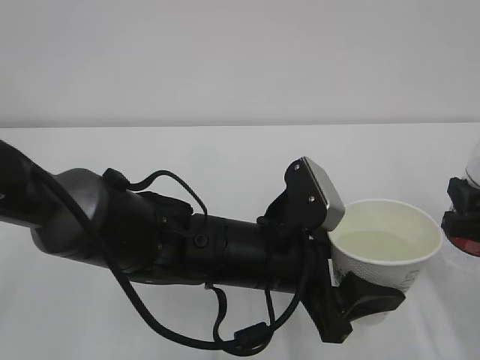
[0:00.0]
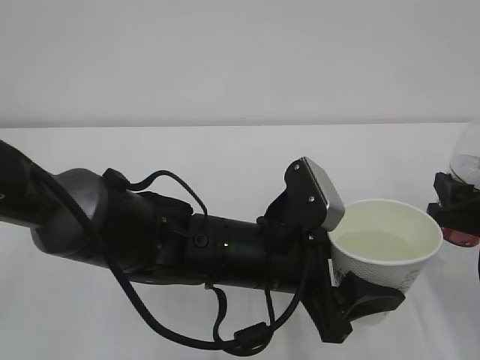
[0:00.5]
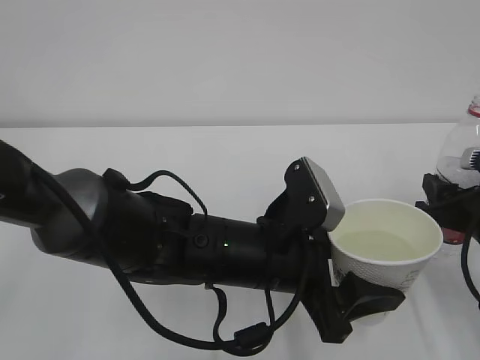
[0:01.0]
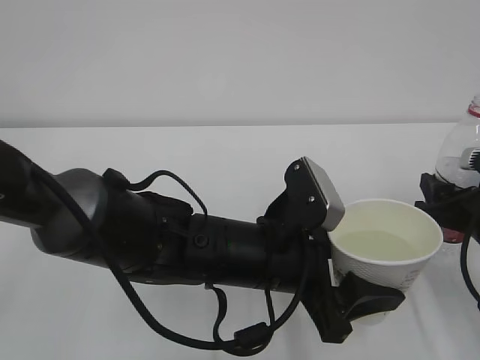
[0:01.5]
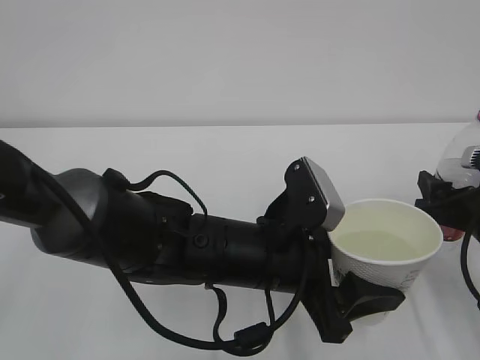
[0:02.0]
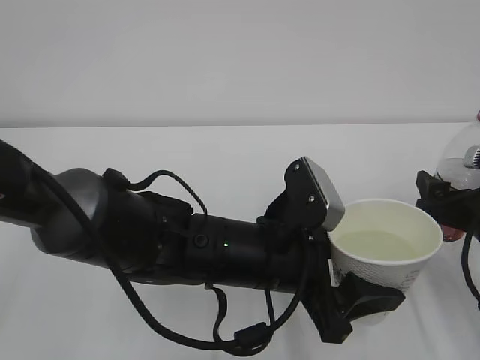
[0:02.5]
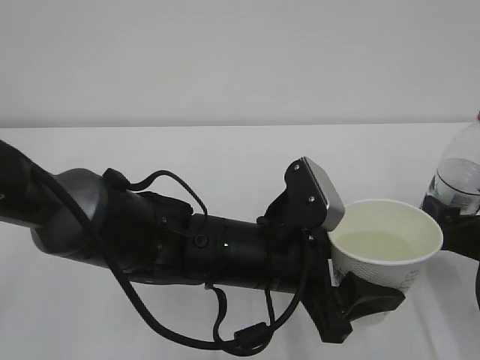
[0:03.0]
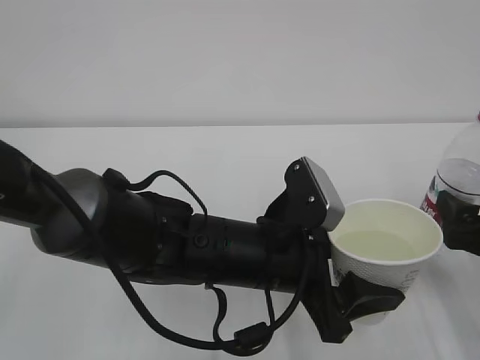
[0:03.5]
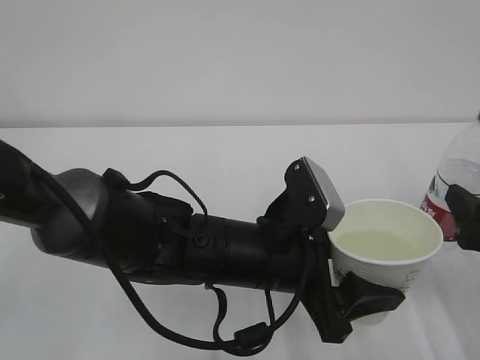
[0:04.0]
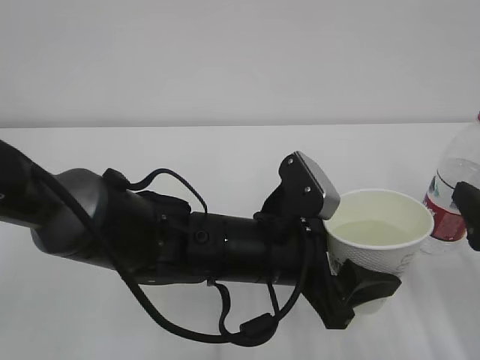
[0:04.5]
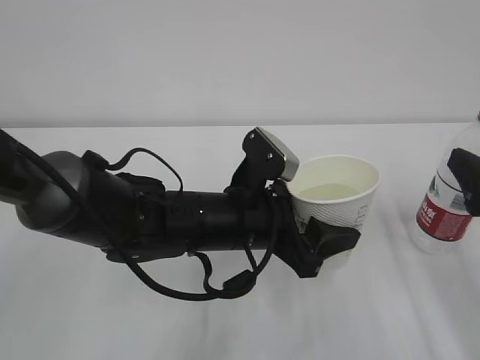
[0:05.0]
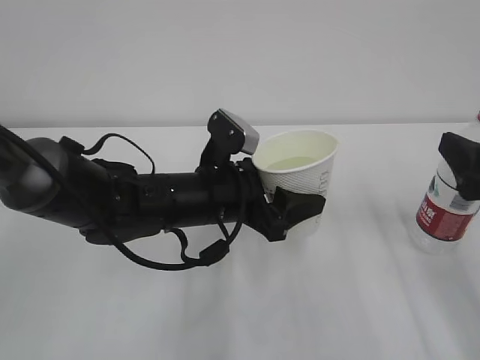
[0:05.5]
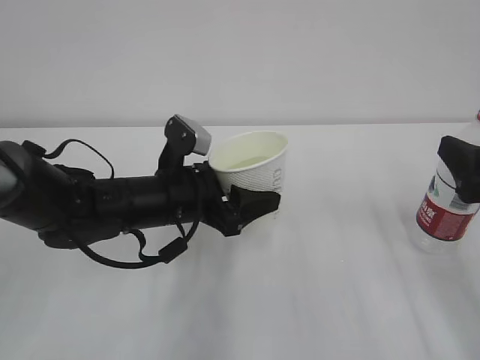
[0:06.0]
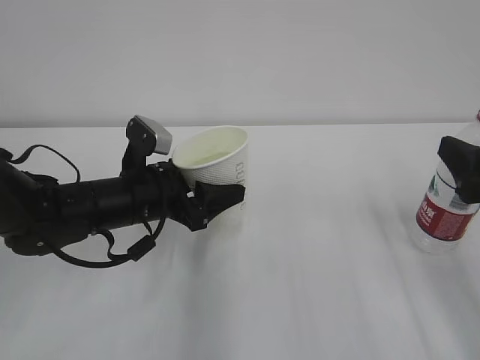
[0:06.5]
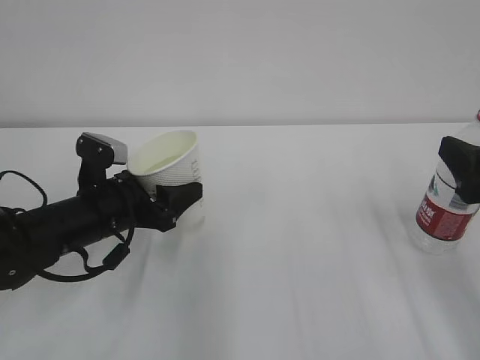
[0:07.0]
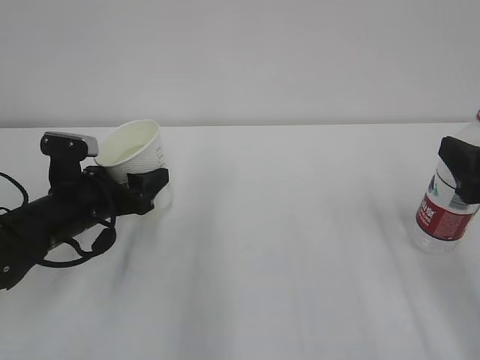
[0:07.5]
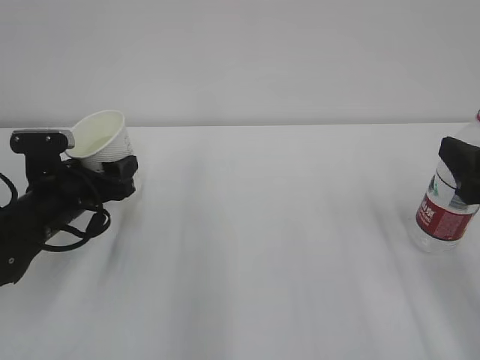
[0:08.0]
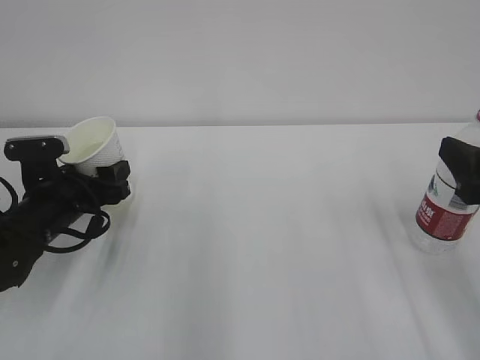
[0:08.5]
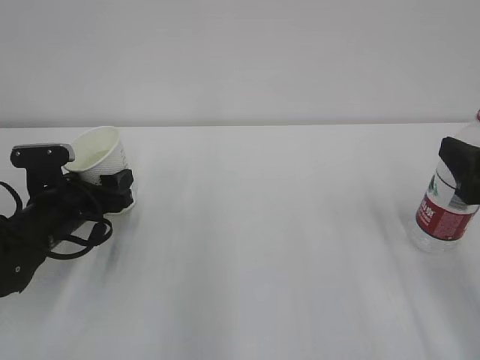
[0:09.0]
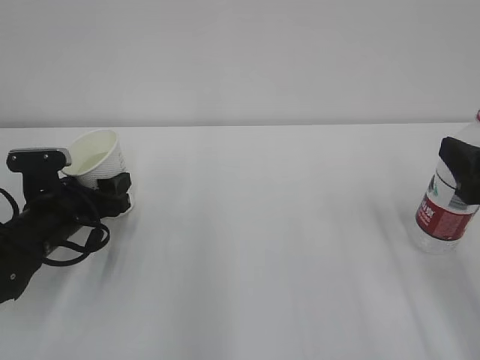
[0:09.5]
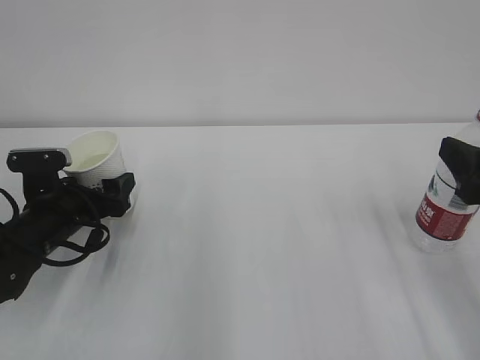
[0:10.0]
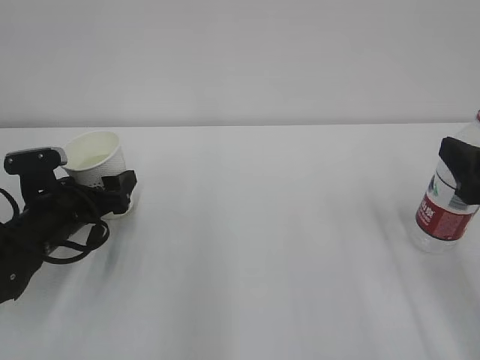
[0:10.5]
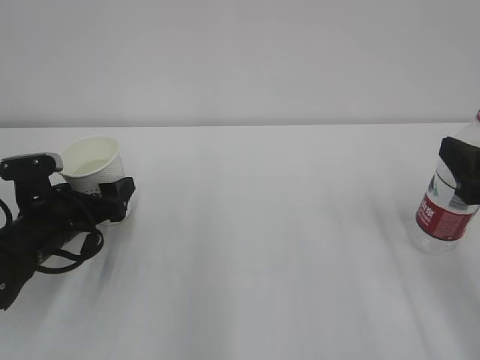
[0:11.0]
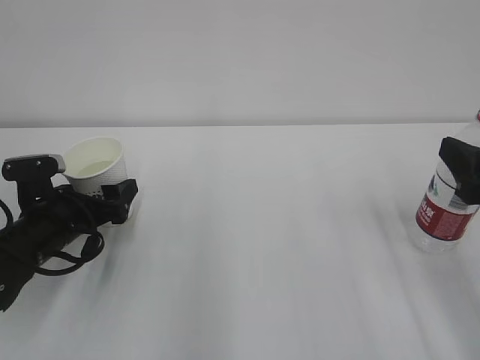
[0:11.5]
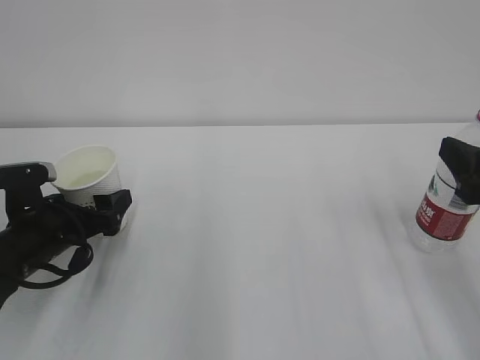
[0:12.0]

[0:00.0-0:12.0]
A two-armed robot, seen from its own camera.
0:00.0 to 0:02.0: The right gripper shifts by some 5 cm, and opens.
0:02.0 to 0:04.0: The right gripper heads backward, covering roughly 5 cm, and opens its fingers.
0:04.0 to 0:06.0: The left gripper goes approximately 15 cm to the left and forward. The right gripper is displaced upward by roughly 5 cm.
0:06.0 to 0:08.0: The left gripper moves to the left, approximately 15 cm.
0:08.0 to 0:10.0: The left gripper opens its fingers.
0:10.0 to 0:12.0: There are only small adjustments of the grippers.

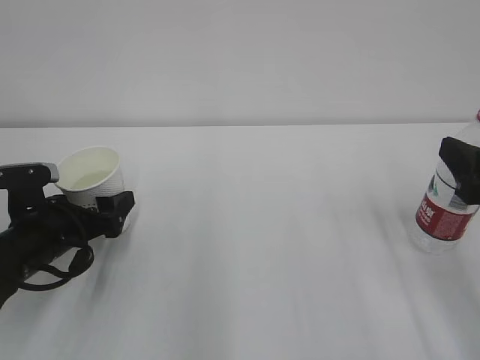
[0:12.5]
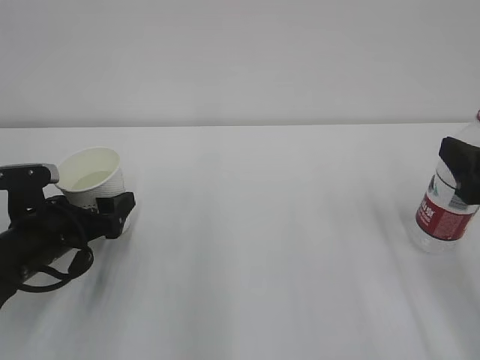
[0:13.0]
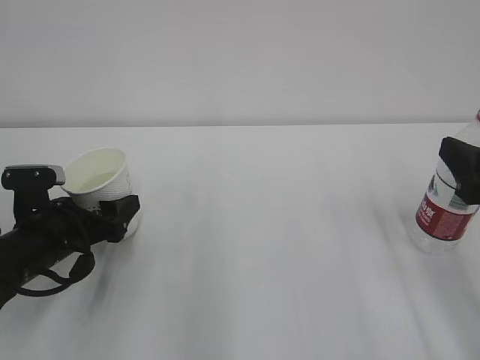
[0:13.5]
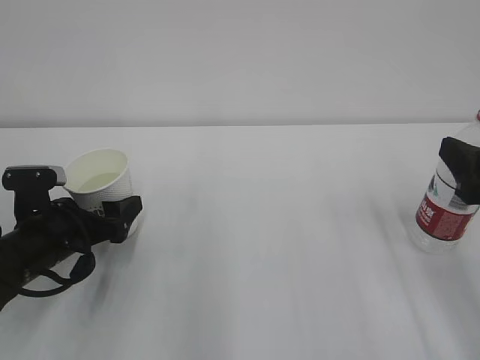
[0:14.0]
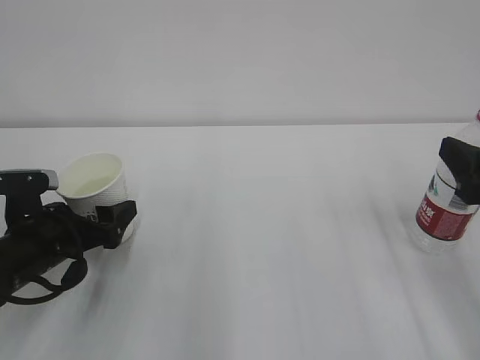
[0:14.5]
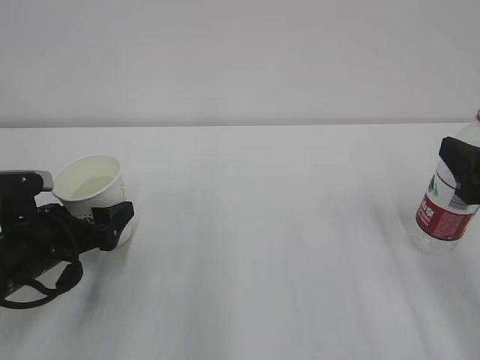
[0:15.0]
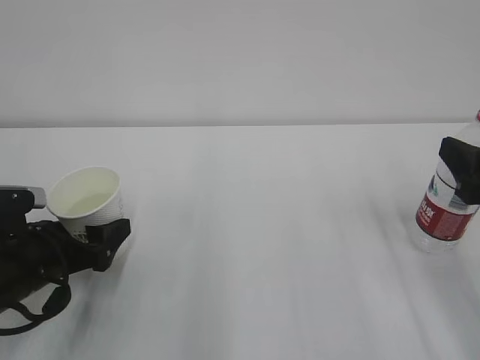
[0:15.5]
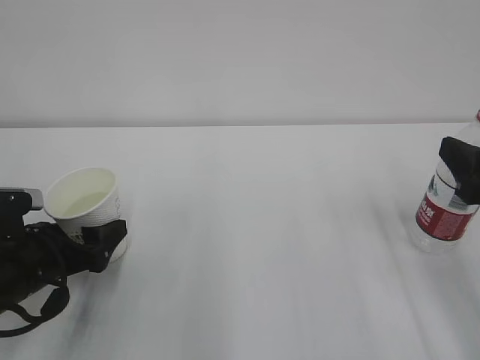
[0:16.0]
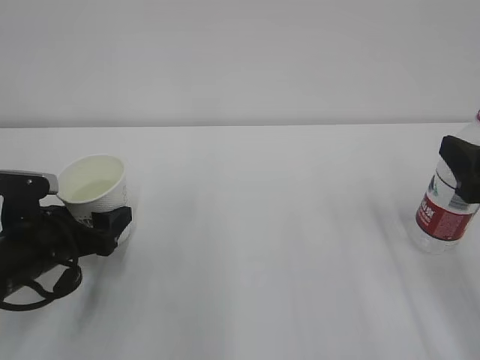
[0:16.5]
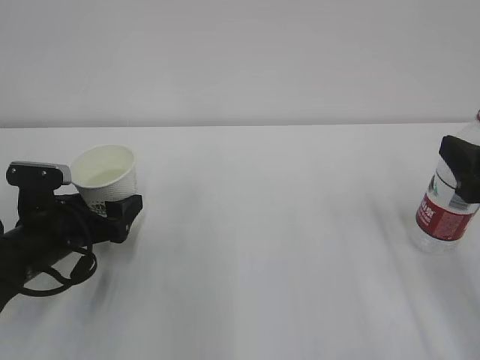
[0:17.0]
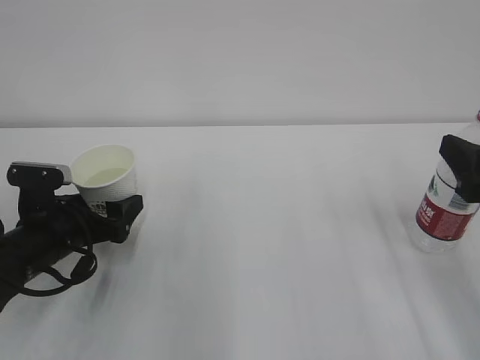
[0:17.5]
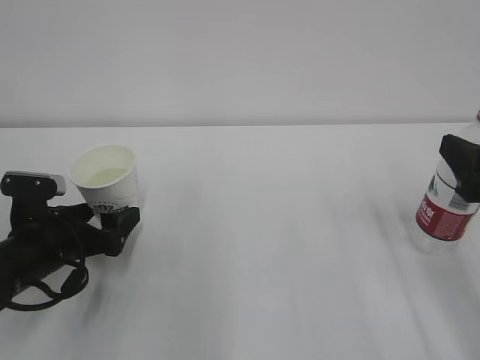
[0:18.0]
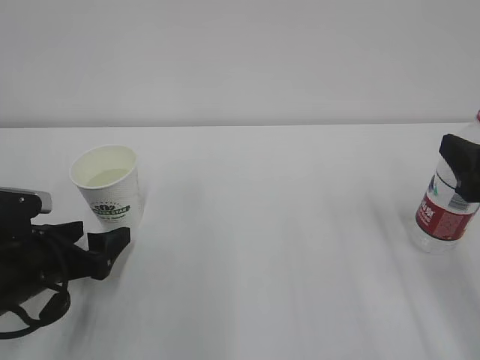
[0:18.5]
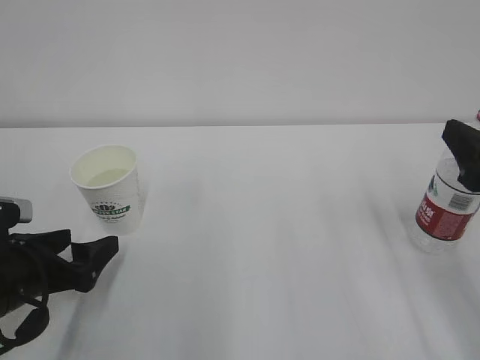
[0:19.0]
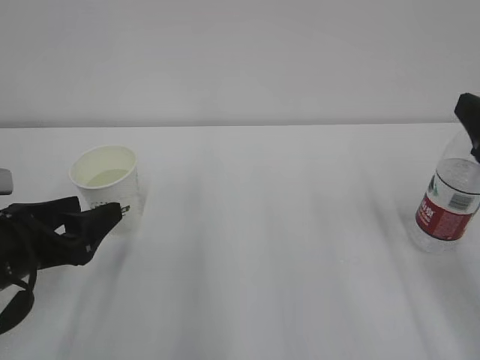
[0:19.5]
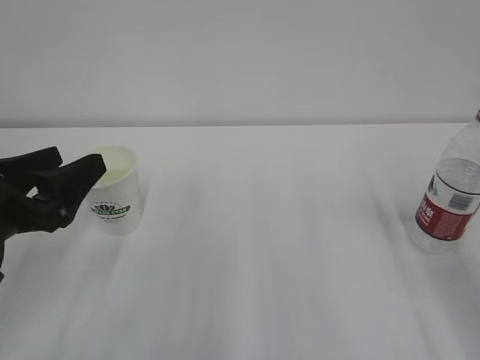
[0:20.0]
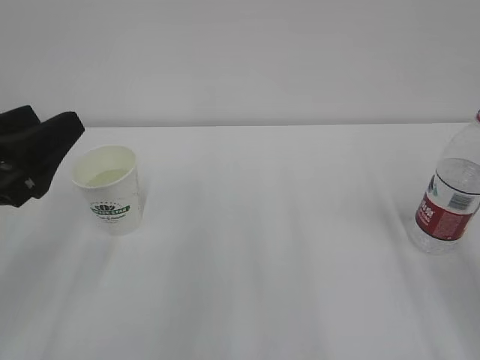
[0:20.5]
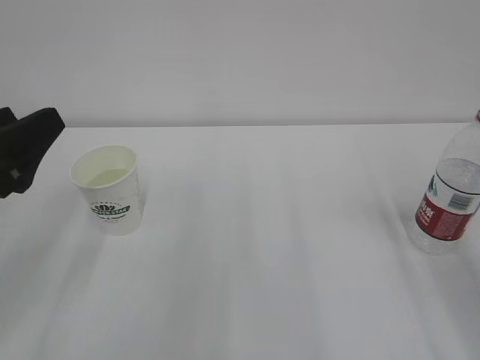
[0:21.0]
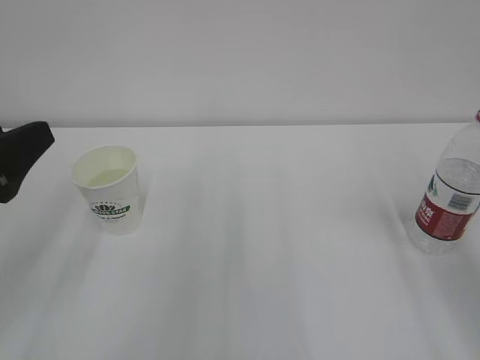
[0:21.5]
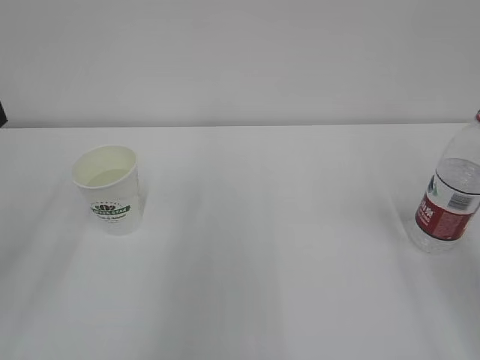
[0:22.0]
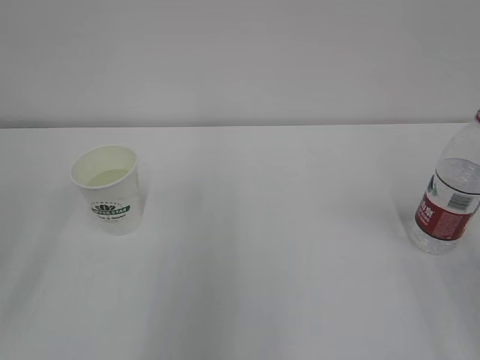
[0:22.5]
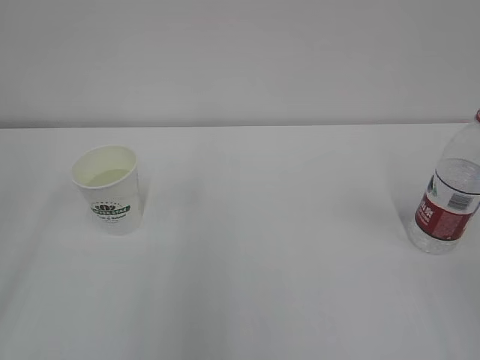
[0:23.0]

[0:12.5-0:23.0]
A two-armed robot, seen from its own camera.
0:12.5 to 0:14.5: Both grippers stay about where they are.
0:14.5 to 0:16.5: The grippers move only a little.
0:16.5 to 0:19.0: The left gripper changes place by approximately 5 cm.
0:19.0 to 0:21.0: The two grippers go some 10 cm upward.
0:21.0 to 0:23.0: The left gripper moves backward, upward and to the left, about 15 cm.

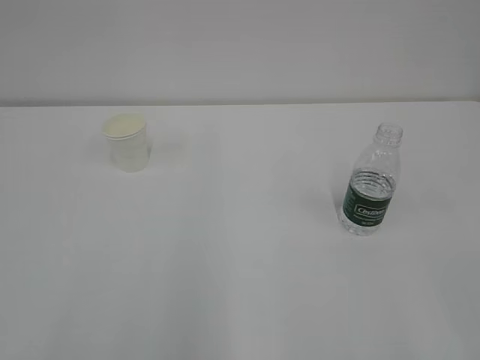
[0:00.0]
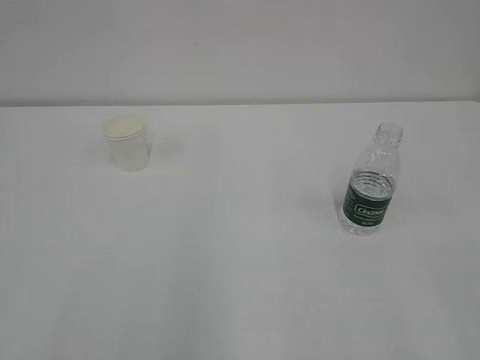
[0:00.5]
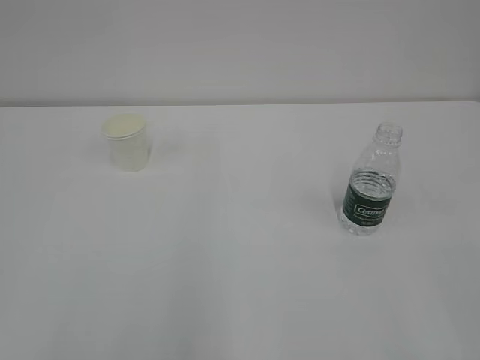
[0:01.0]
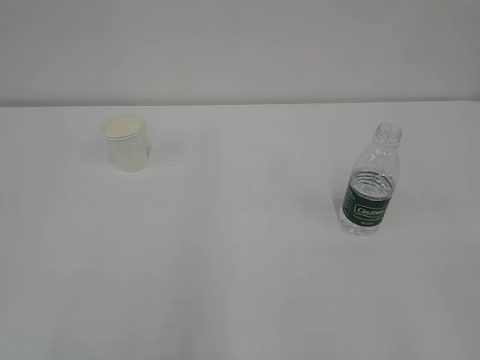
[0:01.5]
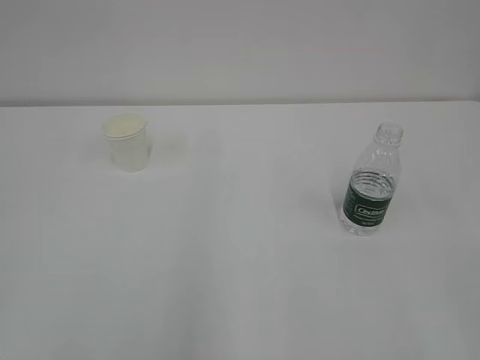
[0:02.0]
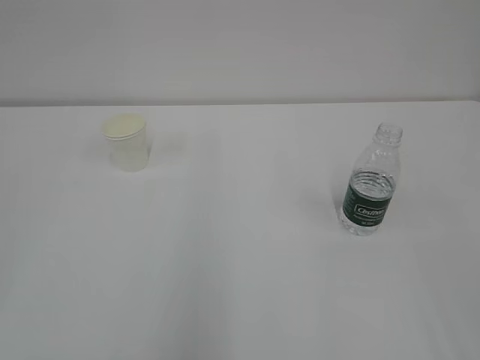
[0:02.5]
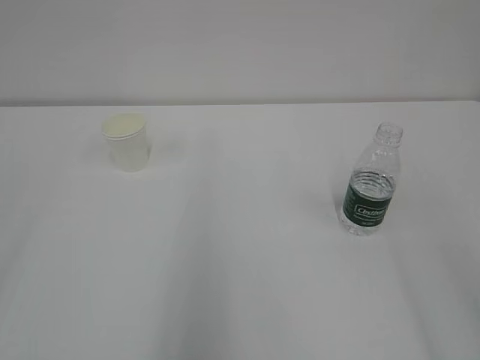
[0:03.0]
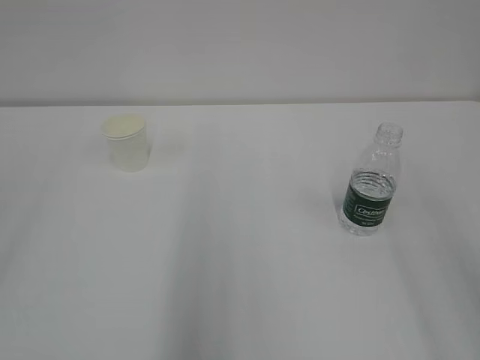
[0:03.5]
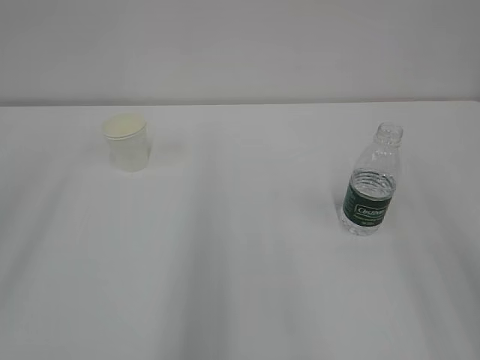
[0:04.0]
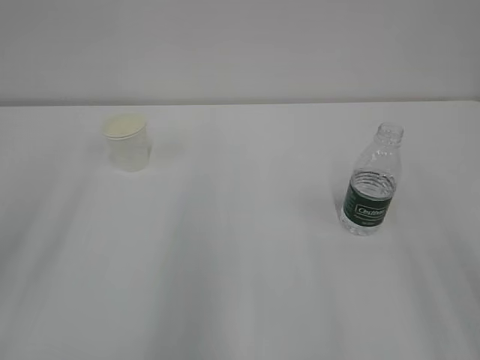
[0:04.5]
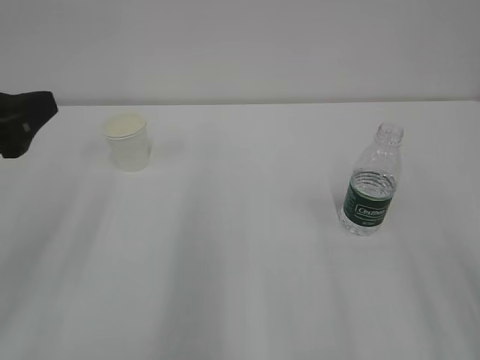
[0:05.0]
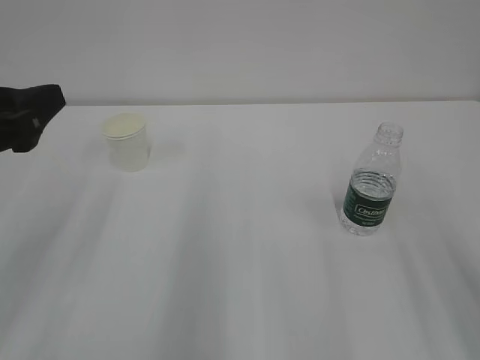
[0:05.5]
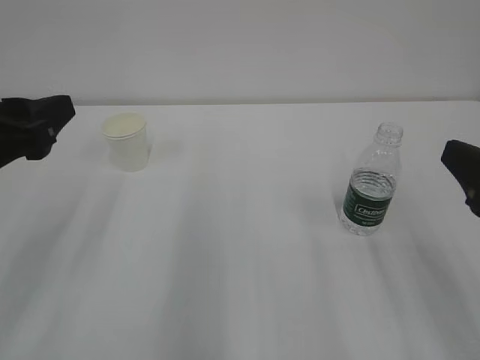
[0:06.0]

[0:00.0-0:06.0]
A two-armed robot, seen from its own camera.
0:04.0 to 0:06.0: The left gripper moves downward, forward and to the right, some 15 cm. Meanwhile the right gripper heads downward and forward, covering approximately 15 cm.
